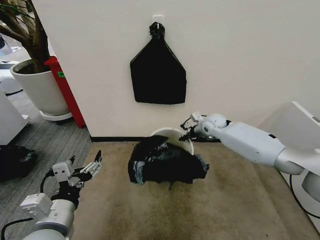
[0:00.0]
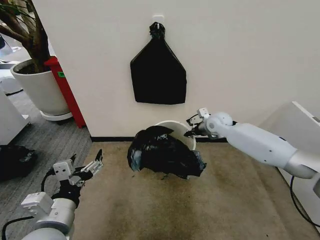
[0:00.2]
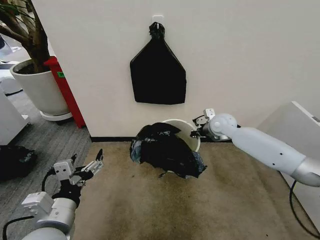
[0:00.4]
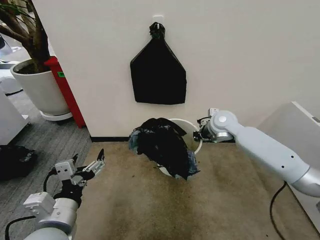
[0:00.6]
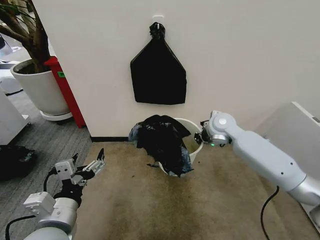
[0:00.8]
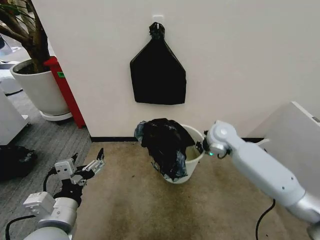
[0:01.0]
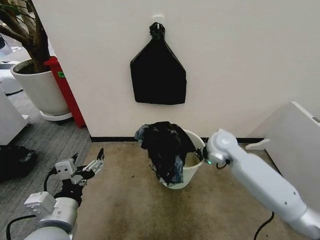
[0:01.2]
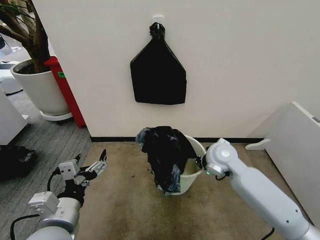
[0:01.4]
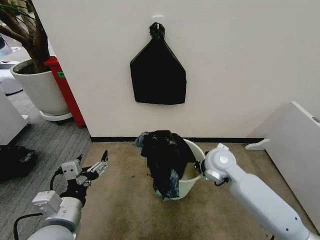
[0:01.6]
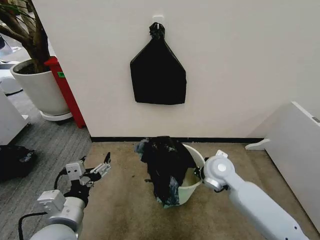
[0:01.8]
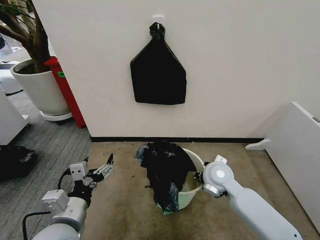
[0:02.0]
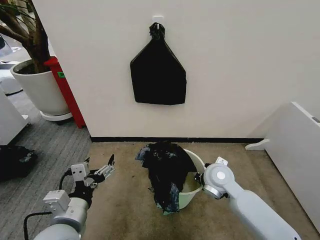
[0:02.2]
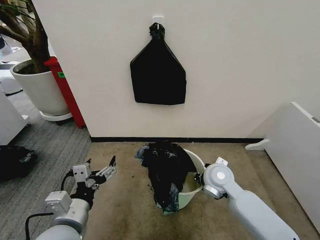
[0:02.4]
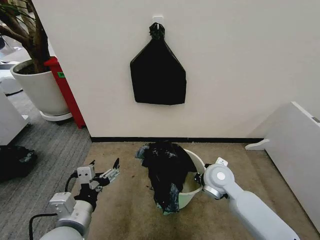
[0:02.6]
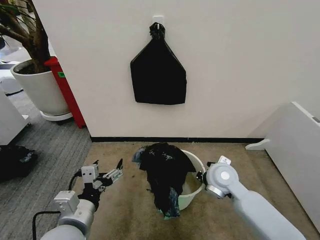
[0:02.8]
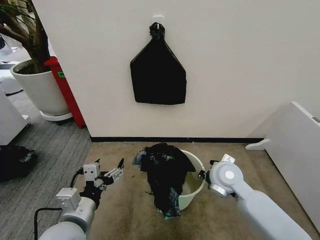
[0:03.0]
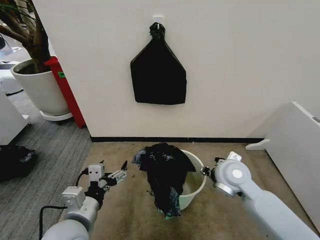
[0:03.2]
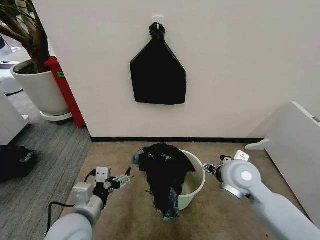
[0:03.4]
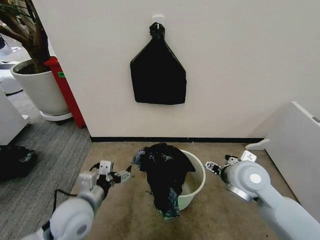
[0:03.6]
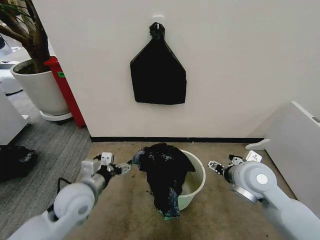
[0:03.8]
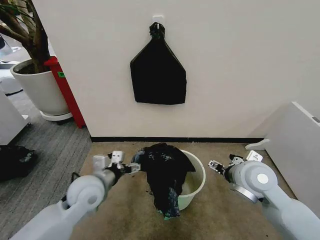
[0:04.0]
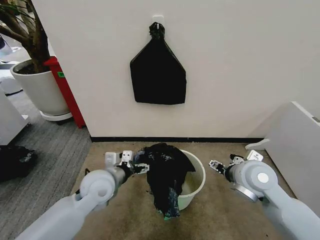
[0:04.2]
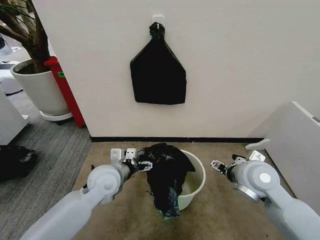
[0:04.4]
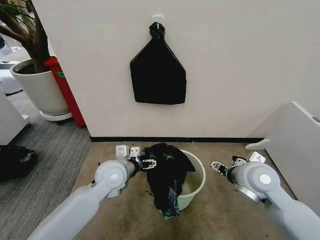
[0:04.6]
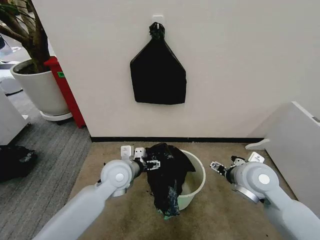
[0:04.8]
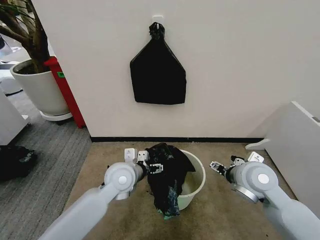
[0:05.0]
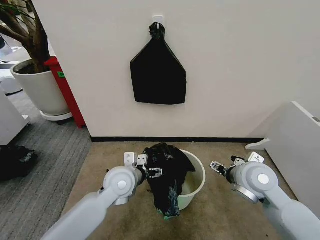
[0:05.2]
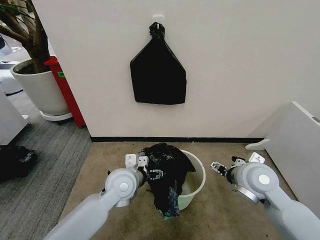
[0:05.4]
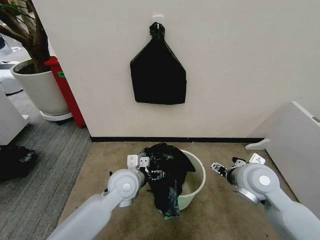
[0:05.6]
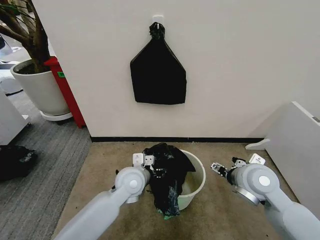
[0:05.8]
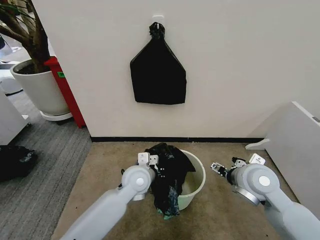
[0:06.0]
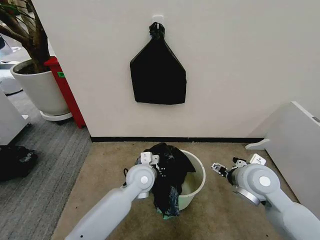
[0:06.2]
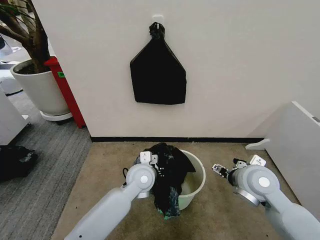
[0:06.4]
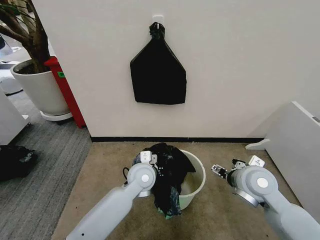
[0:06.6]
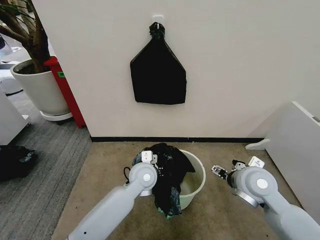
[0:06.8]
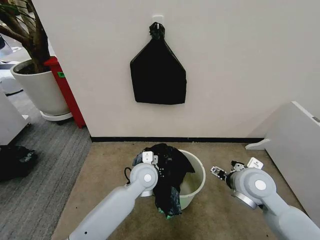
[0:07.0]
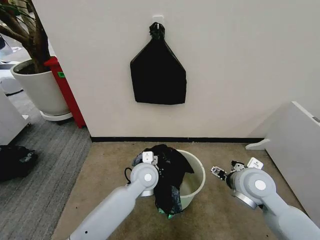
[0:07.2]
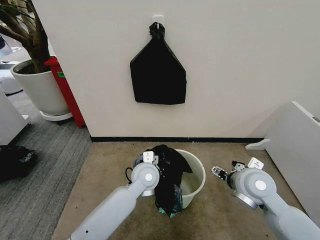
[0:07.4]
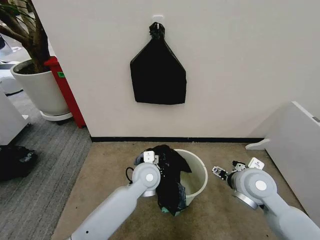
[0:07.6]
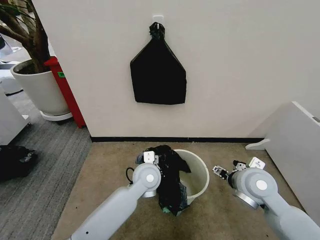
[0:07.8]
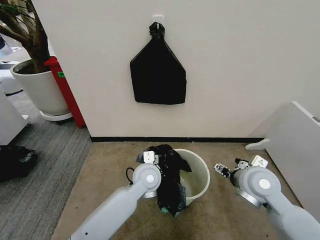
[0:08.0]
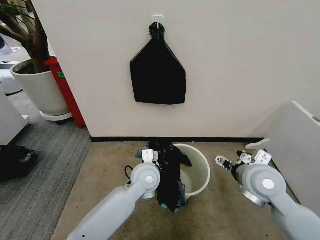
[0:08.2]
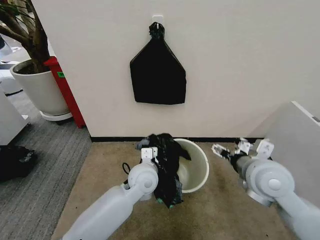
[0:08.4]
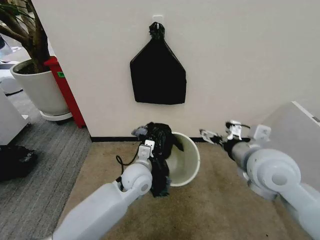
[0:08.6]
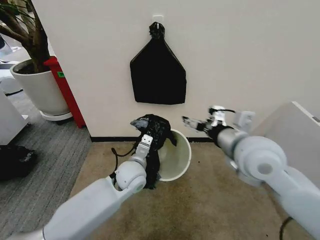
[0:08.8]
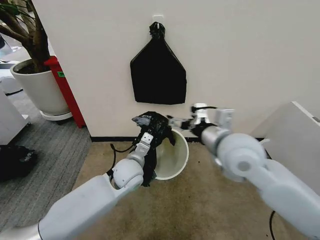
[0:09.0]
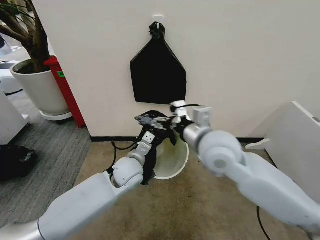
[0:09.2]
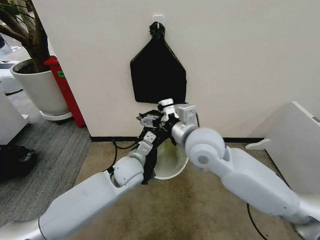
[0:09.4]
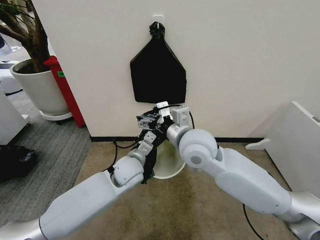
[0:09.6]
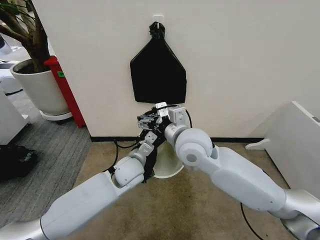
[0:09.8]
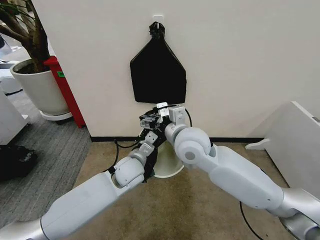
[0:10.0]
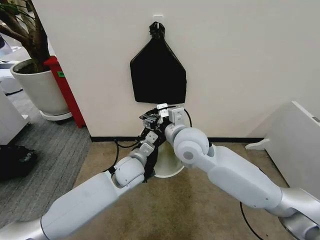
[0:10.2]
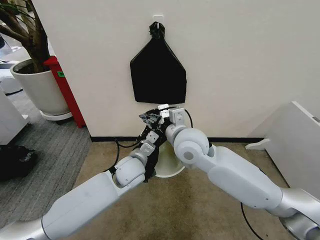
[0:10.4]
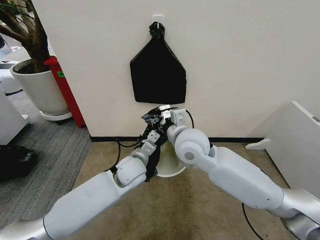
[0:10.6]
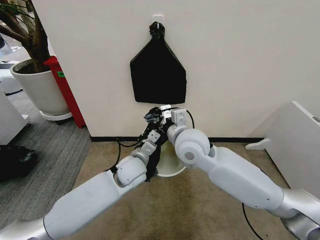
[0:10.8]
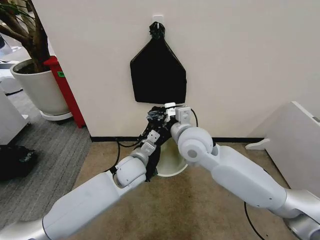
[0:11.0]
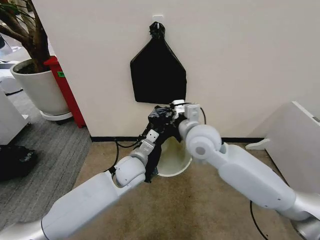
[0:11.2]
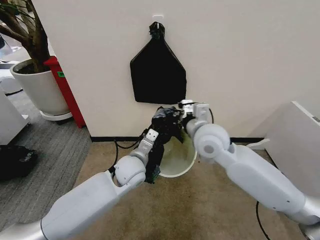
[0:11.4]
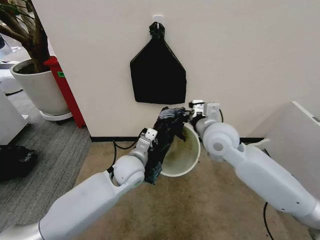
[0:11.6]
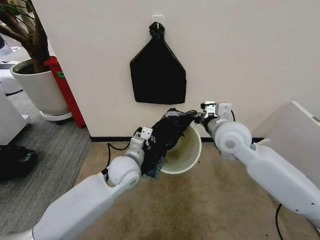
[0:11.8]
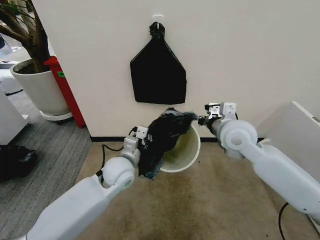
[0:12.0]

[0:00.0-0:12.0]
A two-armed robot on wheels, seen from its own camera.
Task of the whole recording: Place the garbage bag over the trash bin.
0:00.0 to 0:01.6: The right gripper shifts approximately 20 cm backward.
0:01.6 to 0:03.0: The right gripper opens.
0:03.0 to 0:04.4: The left gripper goes roughly 15 cm forward. The right gripper heads upward and to the right, covering roughly 10 cm, and opens its fingers.
0:04.4 to 0:06.0: The left gripper is displaced to the right by about 10 cm.
0:06.0 to 0:07.6: The left gripper closes.
0:07.6 to 0:09.0: The right gripper moves upward and to the left, some 15 cm. Meanwhile the left gripper heads to the left, covering some 5 cm.
0:09.0 to 0:10.4: The right gripper shifts some 10 cm to the left and forward, and closes its fingers.
0:10.4 to 0:12.0: The right gripper moves to the right, about 15 cm, and closes up.

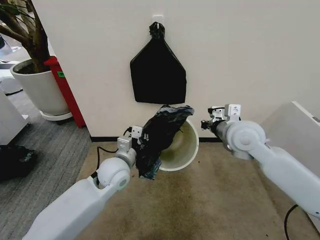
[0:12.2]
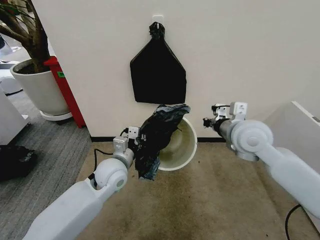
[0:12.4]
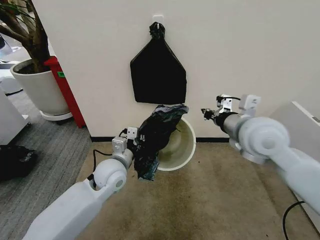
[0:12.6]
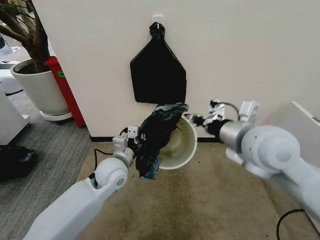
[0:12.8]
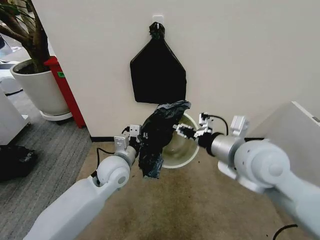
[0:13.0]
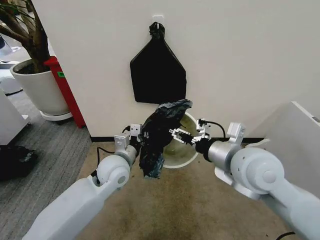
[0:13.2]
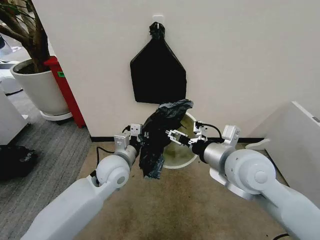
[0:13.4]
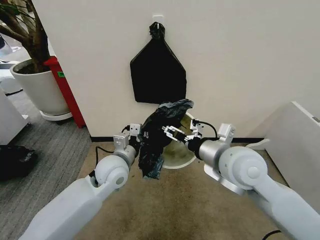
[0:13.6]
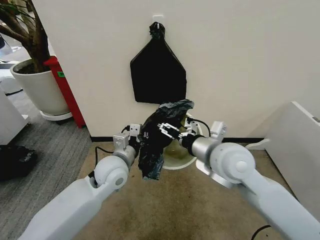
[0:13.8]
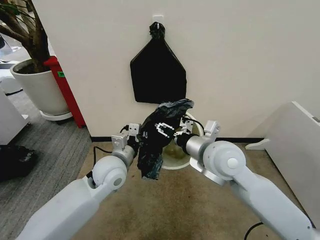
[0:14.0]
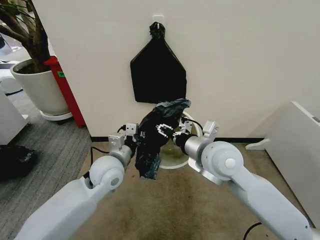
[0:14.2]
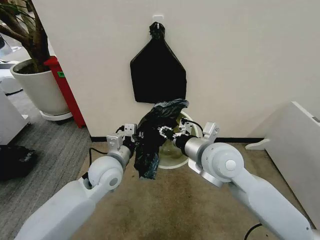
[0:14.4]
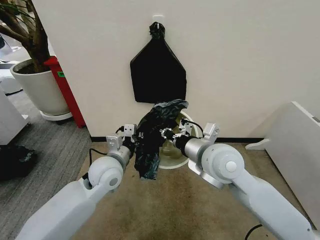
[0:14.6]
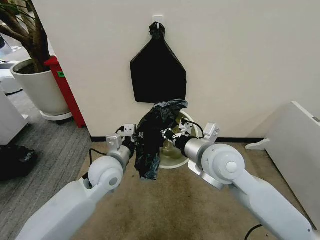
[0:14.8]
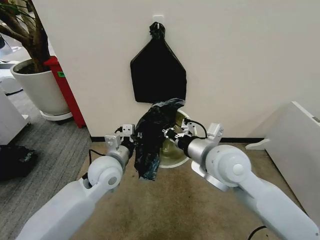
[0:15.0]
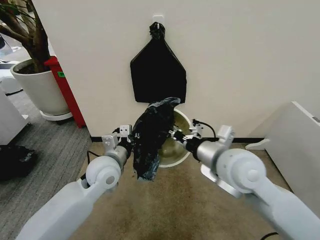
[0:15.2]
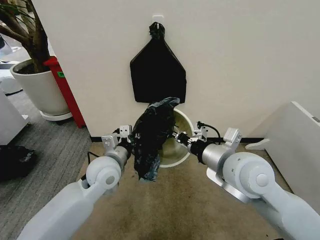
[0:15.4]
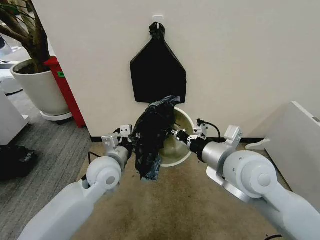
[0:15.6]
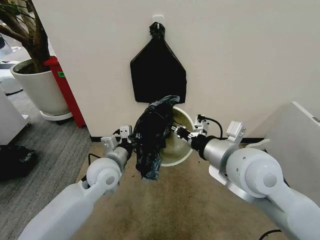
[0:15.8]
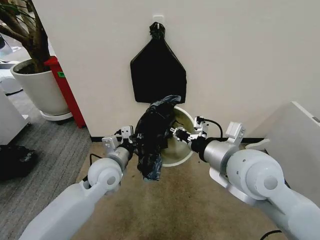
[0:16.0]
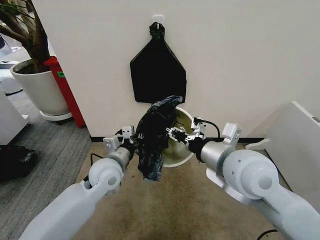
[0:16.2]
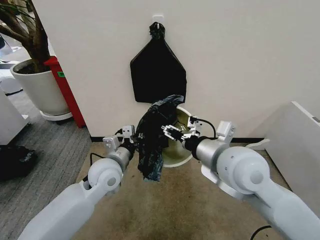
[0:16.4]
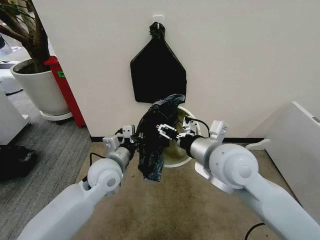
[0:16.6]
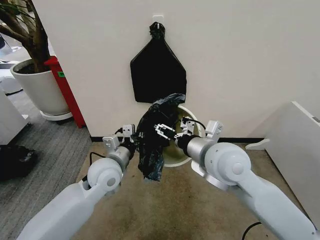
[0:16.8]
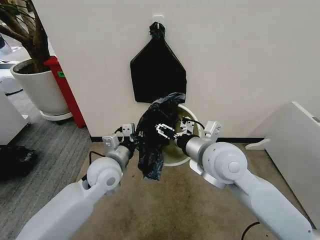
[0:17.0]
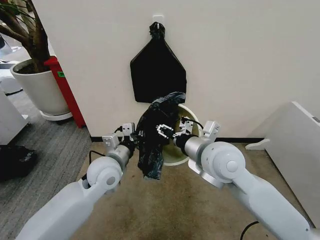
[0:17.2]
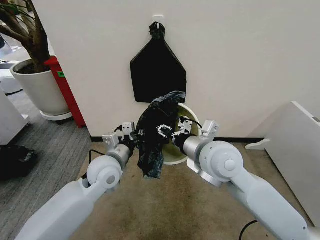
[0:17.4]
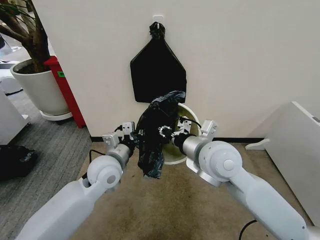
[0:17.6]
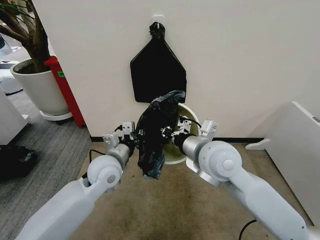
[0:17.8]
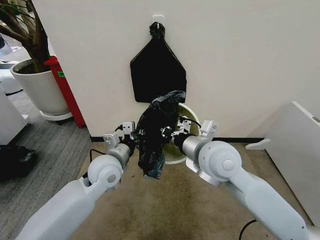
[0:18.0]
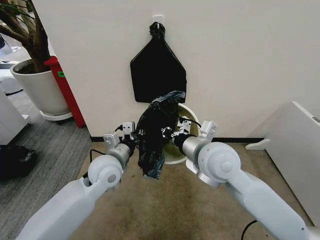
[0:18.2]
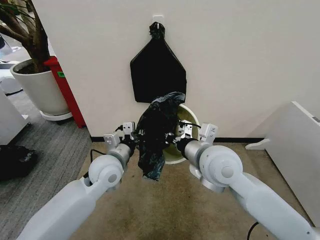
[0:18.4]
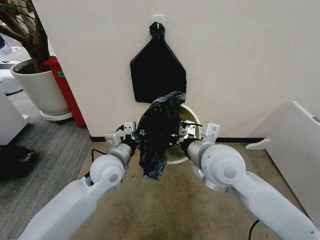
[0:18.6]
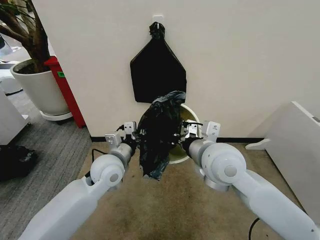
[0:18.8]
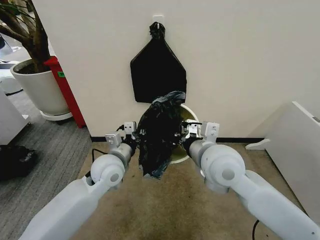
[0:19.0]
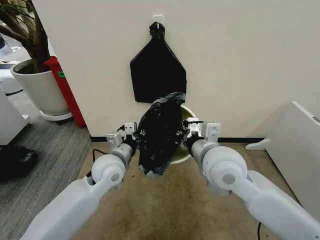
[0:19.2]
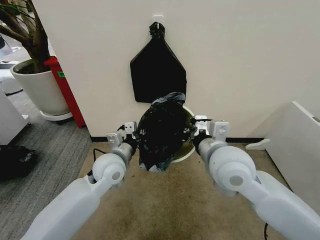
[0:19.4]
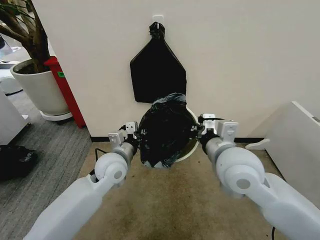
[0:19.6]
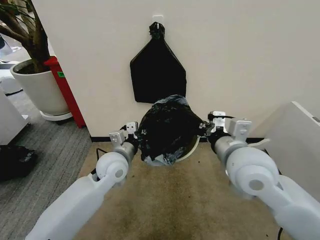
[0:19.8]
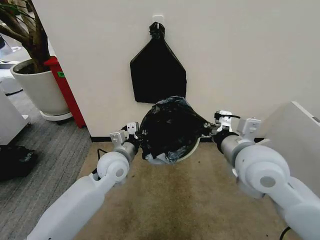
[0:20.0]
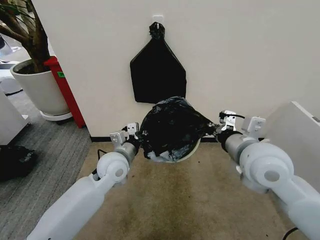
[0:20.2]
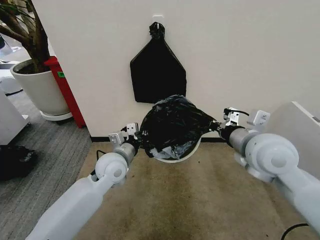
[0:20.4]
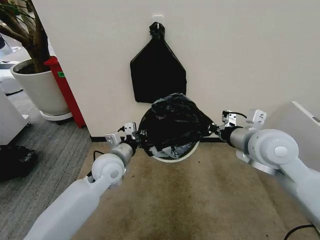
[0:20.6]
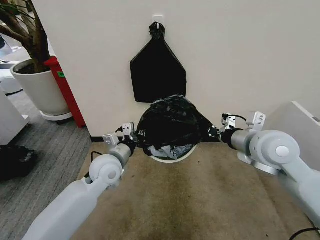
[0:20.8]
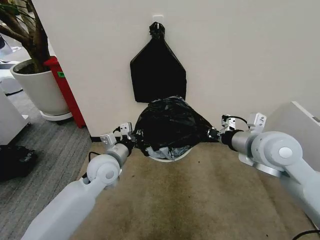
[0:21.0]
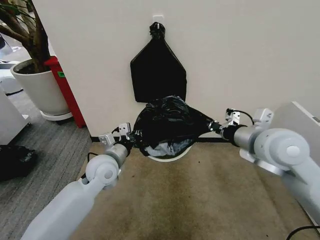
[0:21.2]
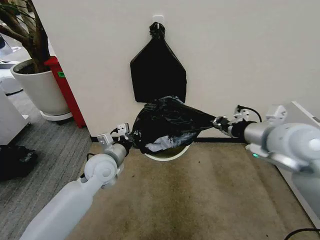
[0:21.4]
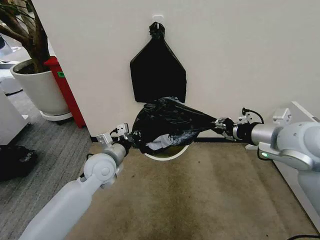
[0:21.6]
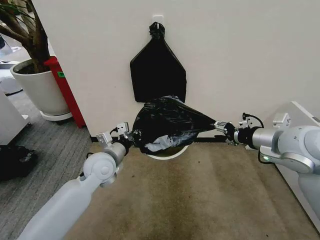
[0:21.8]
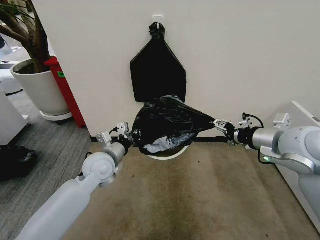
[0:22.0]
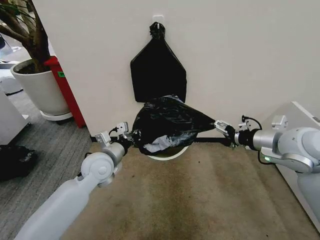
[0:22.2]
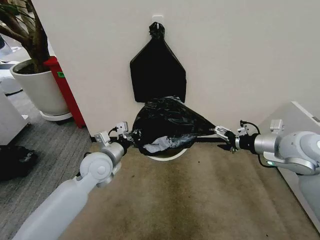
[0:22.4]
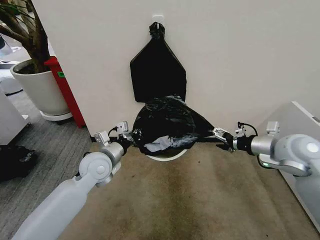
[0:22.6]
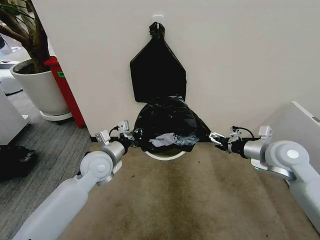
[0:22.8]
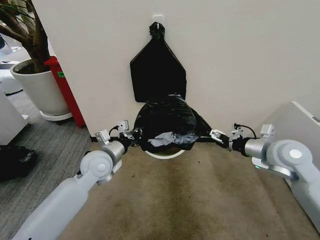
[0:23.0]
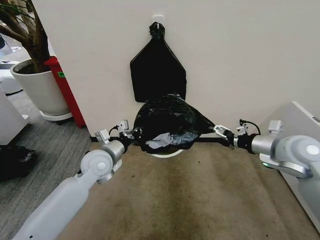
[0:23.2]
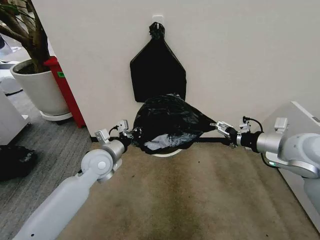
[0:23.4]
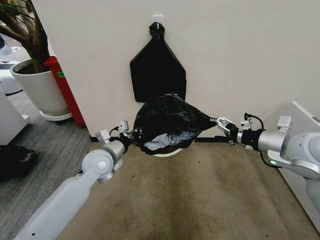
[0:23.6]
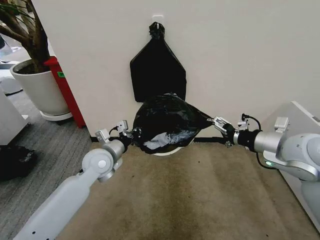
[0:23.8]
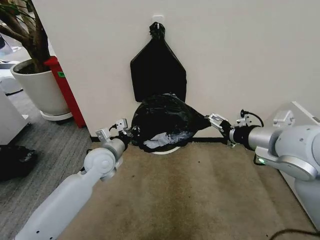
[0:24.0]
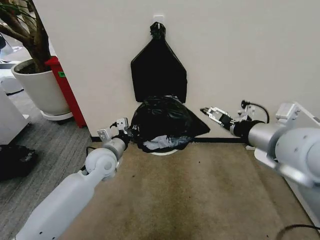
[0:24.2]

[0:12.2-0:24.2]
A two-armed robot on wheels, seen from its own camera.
Task of the whole recording: Place the garbage bag over the trash bin.
0:12.2 to 0:13.8: The right gripper is displaced backward and to the left by about 10 cm, and opens.
0:13.8 to 0:15.2: The right gripper closes.
0:15.2 to 0:16.6: The right gripper opens up.
0:16.6 to 0:18.2: The right gripper closes.
0:18.2 to 0:19.8: The right gripper is displaced to the right by about 5 cm.
0:19.8 to 0:21.2: The right gripper is displaced to the right by about 10 cm.
0:21.2 to 0:22.6: The right gripper heads to the right and downward, covering approximately 10 cm, and opens.
0:22.6 to 0:24.2: The right gripper travels upward, to the left and backward by approximately 15 cm.
